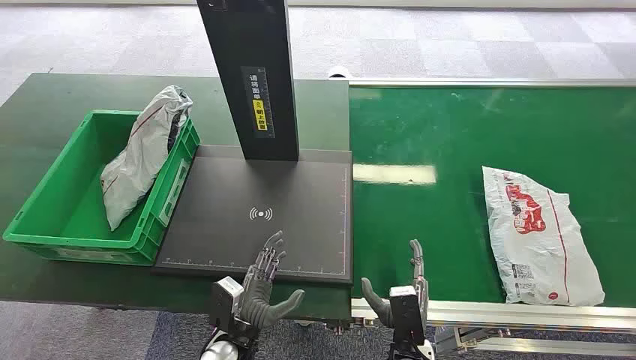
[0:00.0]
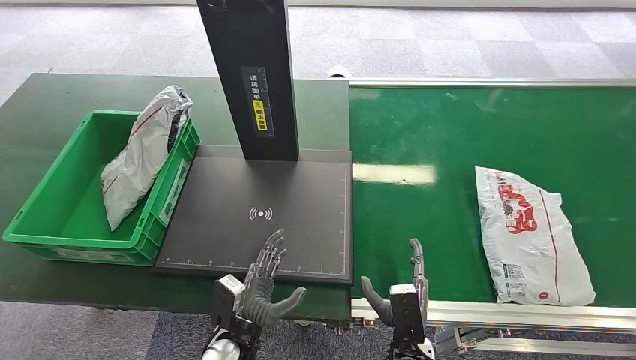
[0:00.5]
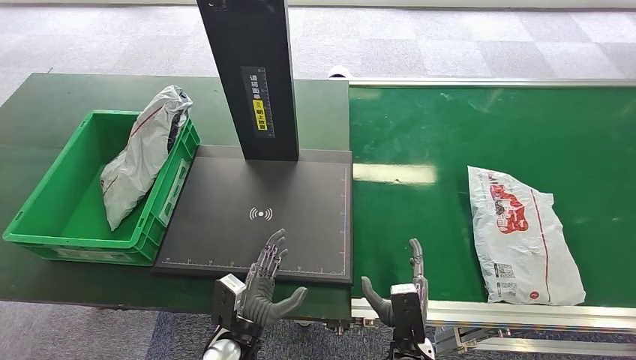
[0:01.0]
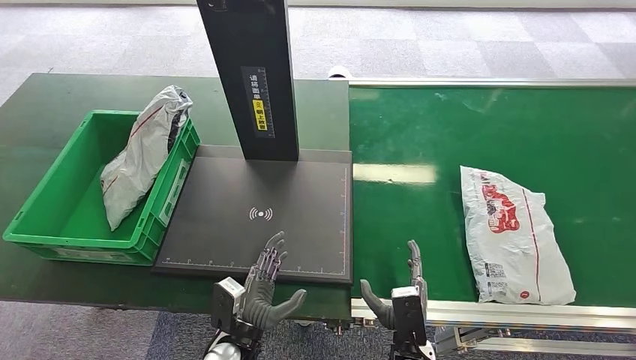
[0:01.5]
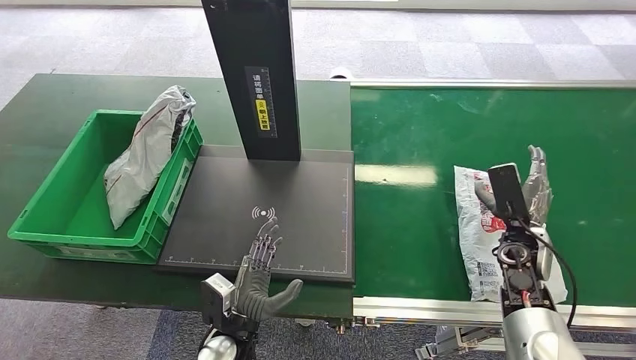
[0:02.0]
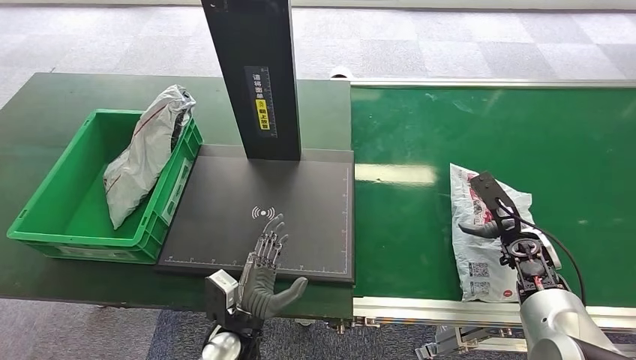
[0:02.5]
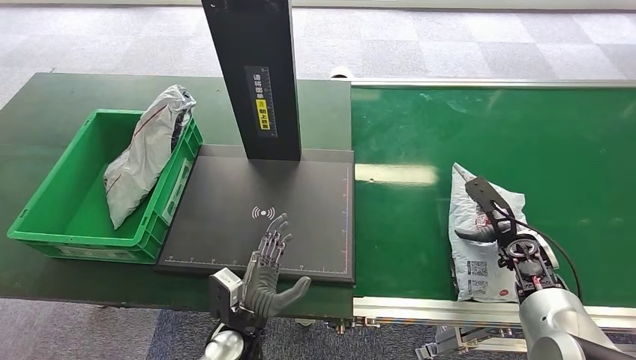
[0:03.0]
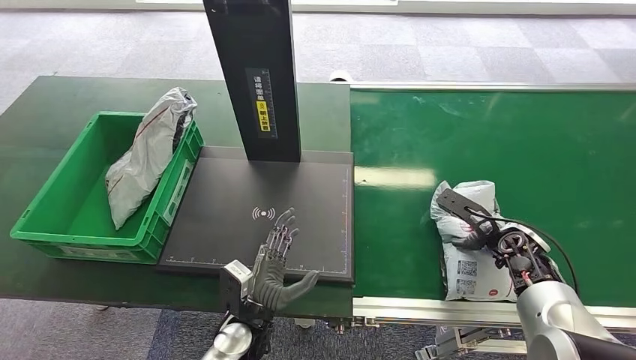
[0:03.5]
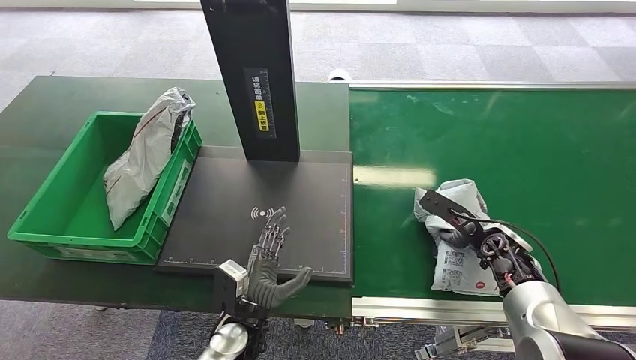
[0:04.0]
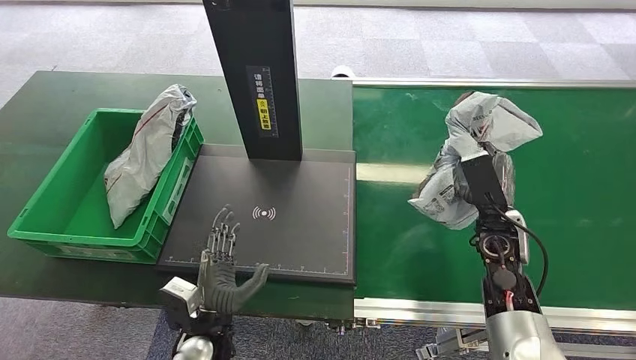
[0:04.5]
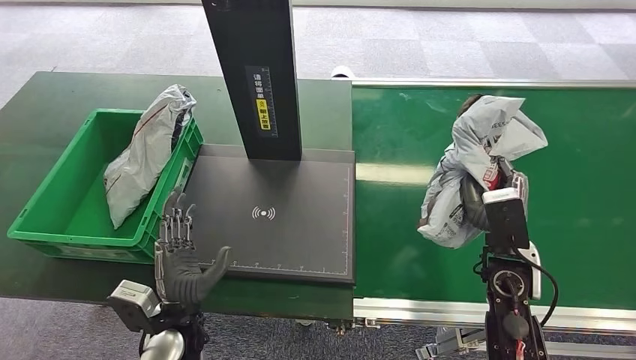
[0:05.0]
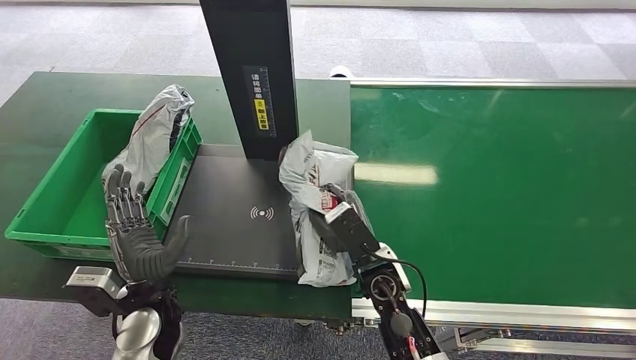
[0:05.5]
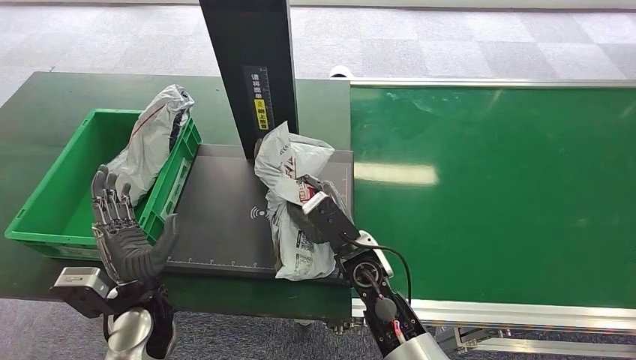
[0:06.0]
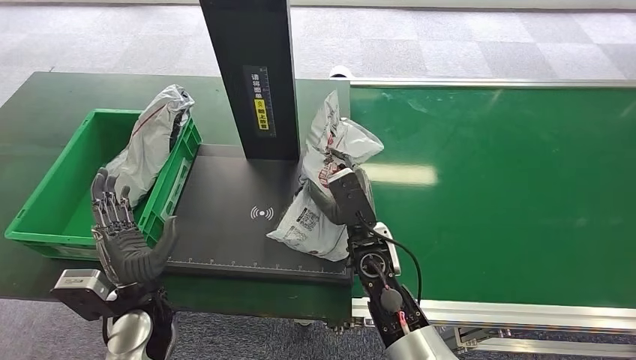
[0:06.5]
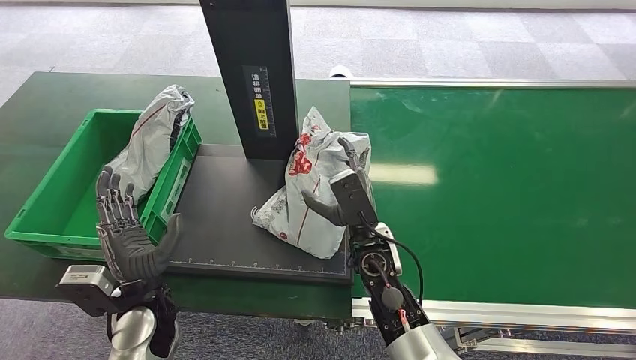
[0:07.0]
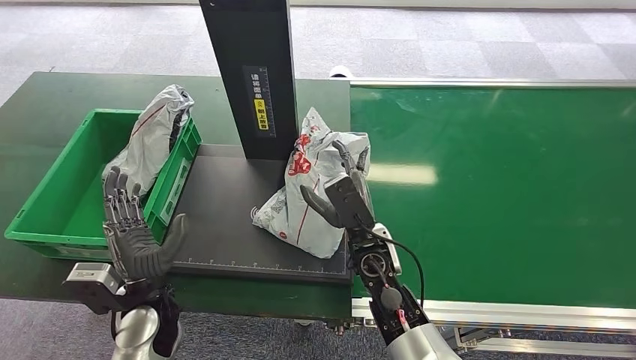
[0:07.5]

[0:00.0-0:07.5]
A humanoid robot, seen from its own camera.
Step, 0:00.0 to 0:05.0: Pick up the package from the conveyor belt.
Step, 0:06.0 to 0:07.5: Place the package onto the inbound machine.
0:05.5 to 0:07.5: The hands move only a little.

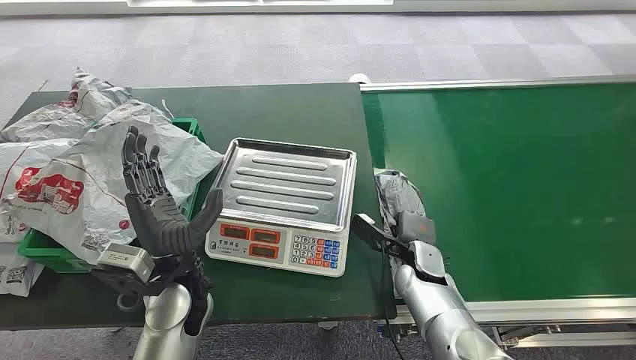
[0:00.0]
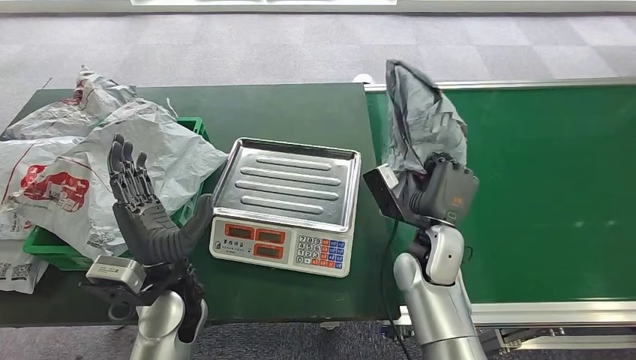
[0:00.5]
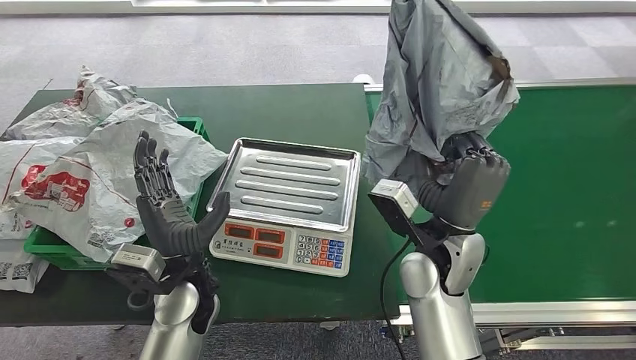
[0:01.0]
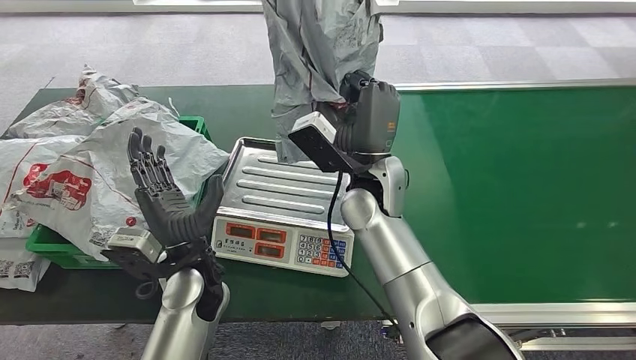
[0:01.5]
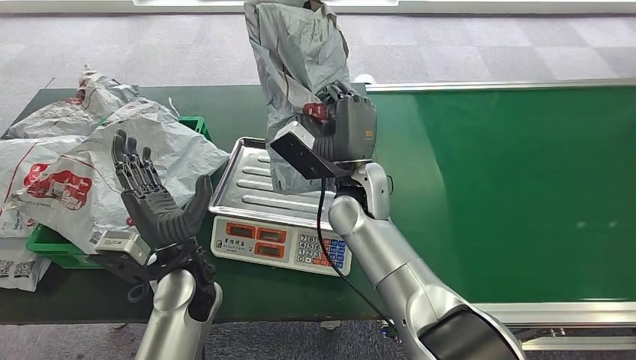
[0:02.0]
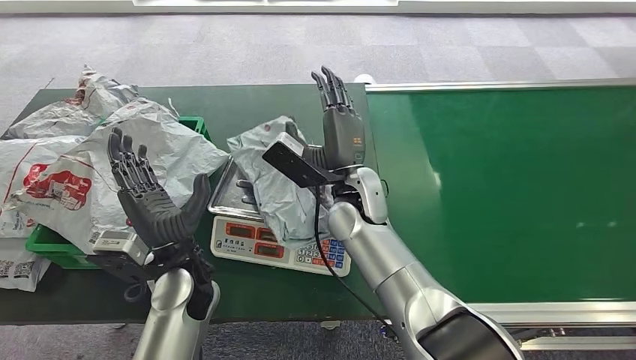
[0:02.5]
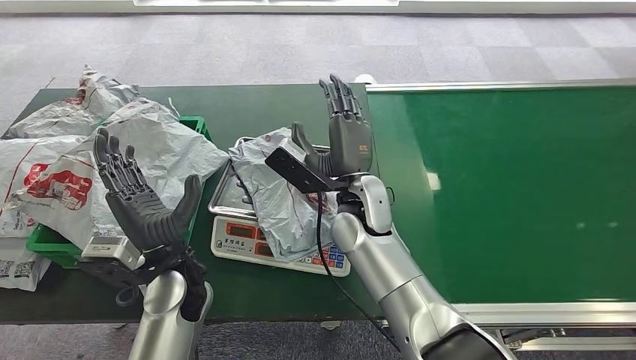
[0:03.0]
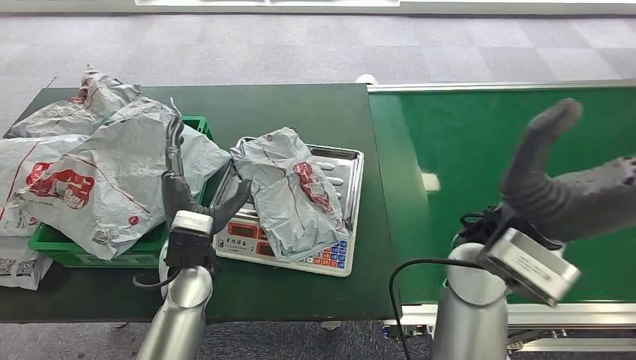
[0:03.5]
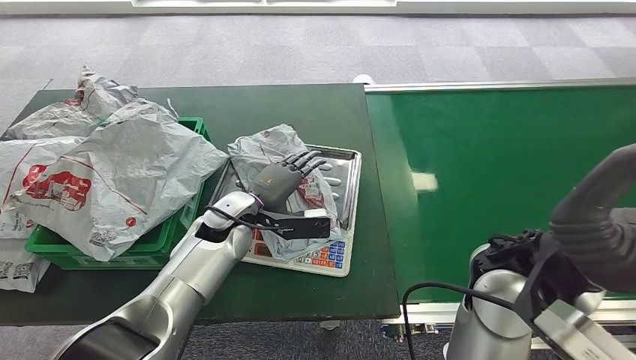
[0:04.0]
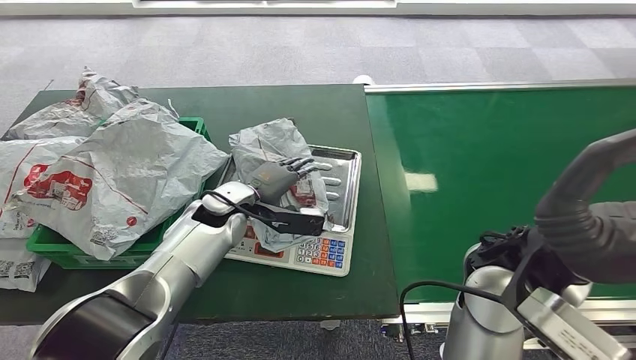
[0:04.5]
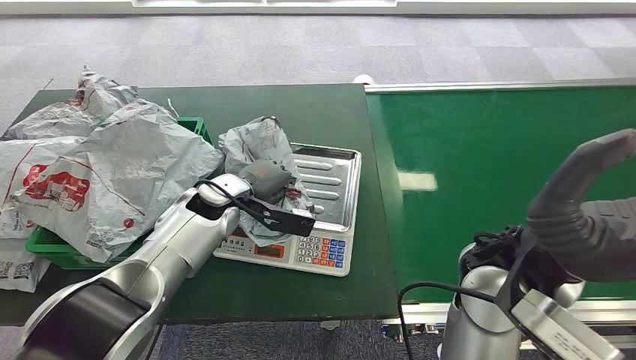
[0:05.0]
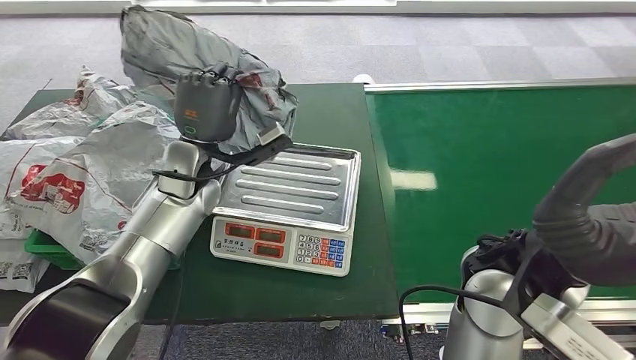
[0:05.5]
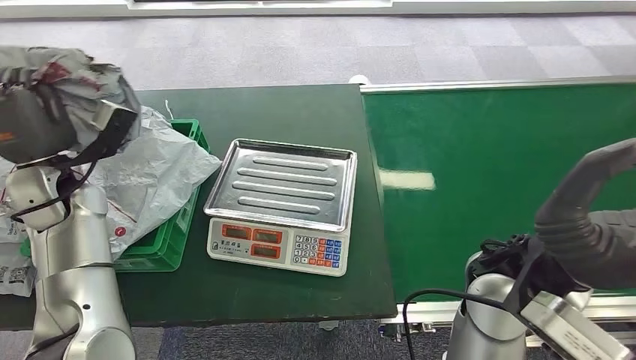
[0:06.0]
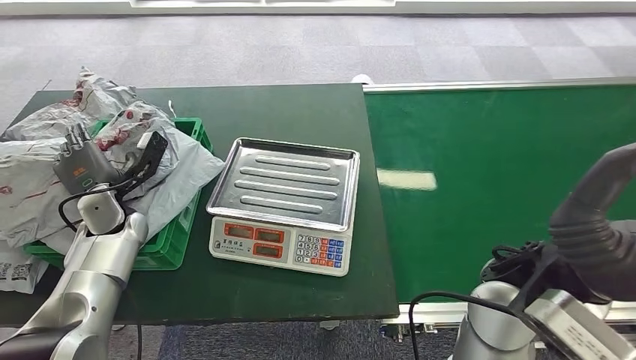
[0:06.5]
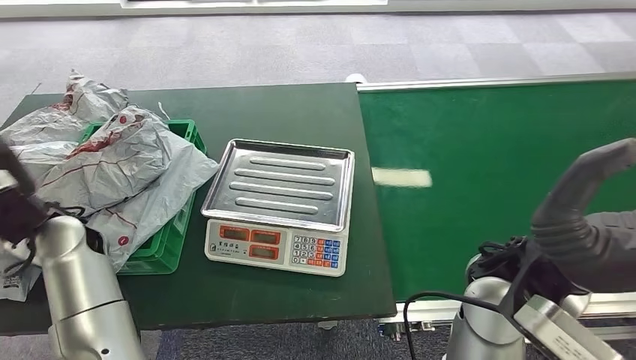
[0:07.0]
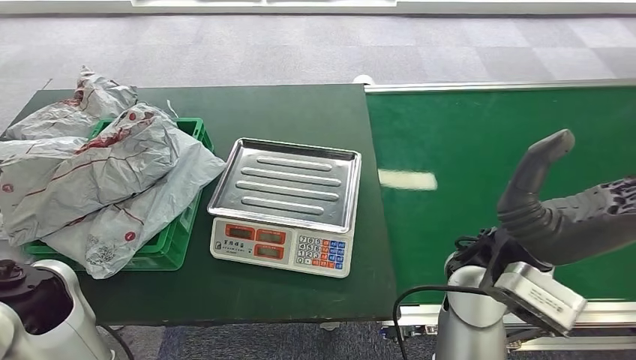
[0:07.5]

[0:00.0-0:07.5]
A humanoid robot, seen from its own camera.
Step, 0:00.0 to 0:01.5: Pick up the package from the conveyor belt.
Step, 0:02.0 to 0:03.5: Place the package onto the inbound machine.
Step, 0:04.5 to 0:05.5: Pick up the package from the inbound machine.
Step, 0:06.0 to 0:07.5: Place the package into the parcel locker.

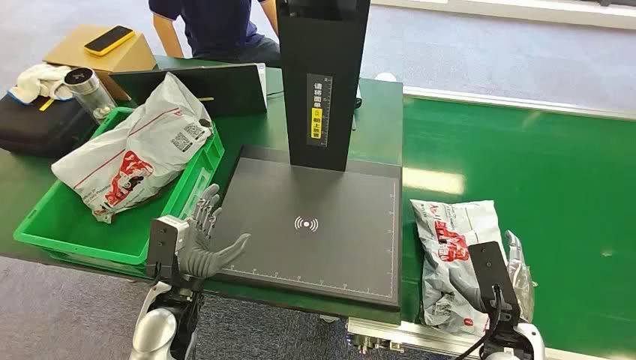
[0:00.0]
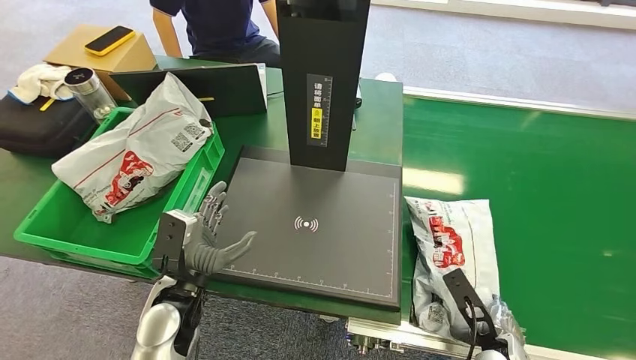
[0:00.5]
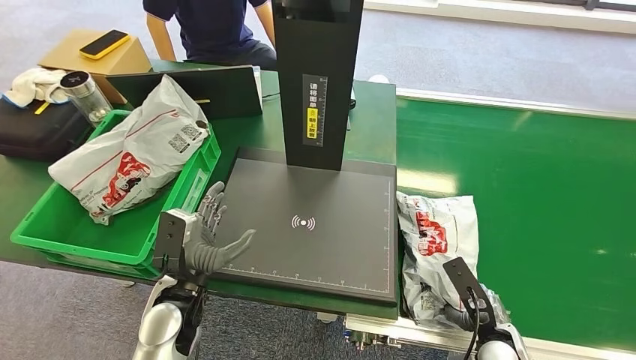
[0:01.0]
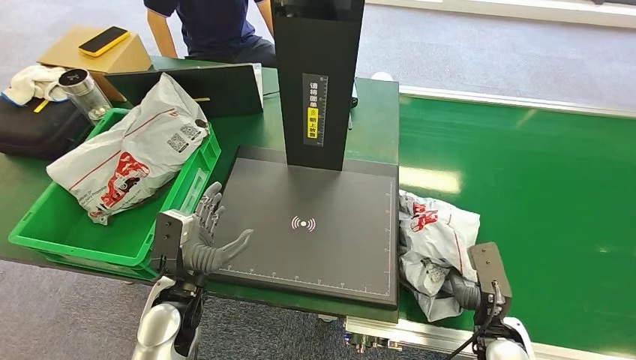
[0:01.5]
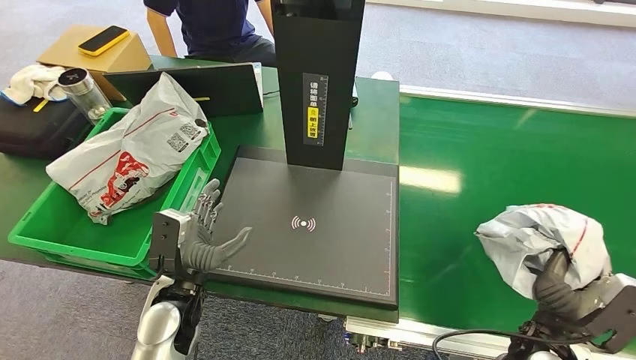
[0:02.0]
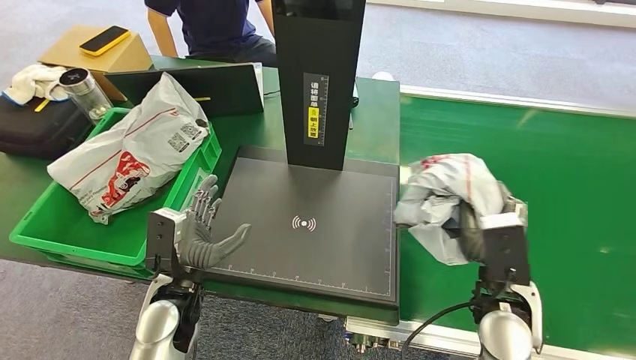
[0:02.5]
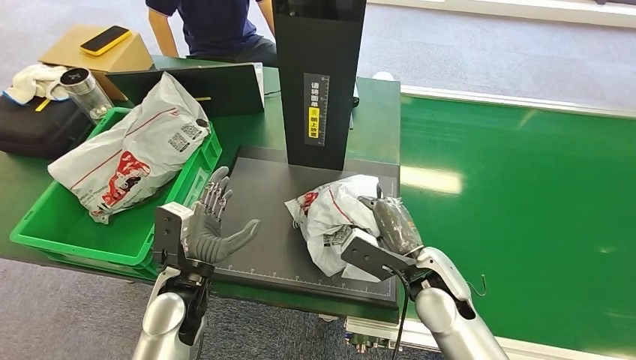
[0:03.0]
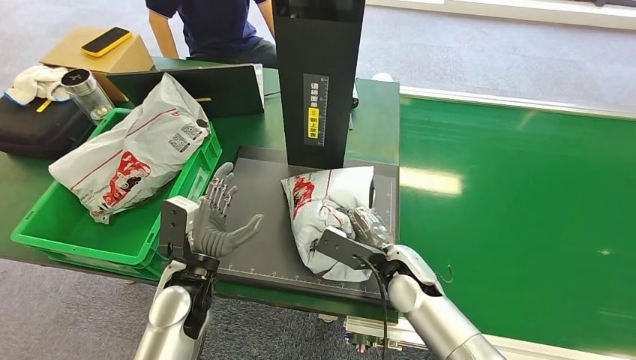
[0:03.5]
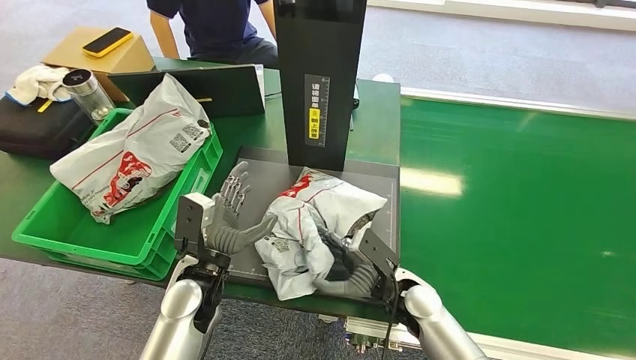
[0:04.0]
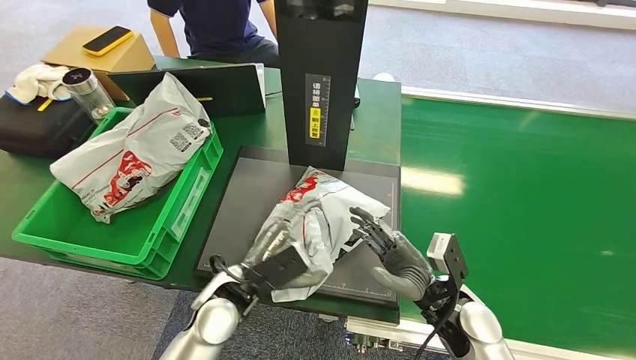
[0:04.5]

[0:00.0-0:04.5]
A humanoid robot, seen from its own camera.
Step, 0:00.0 to 0:01.5: Pick up the package from the conveyor belt.
Step, 0:02.0 to 0:04.0: Place the package onto the inbound machine.
